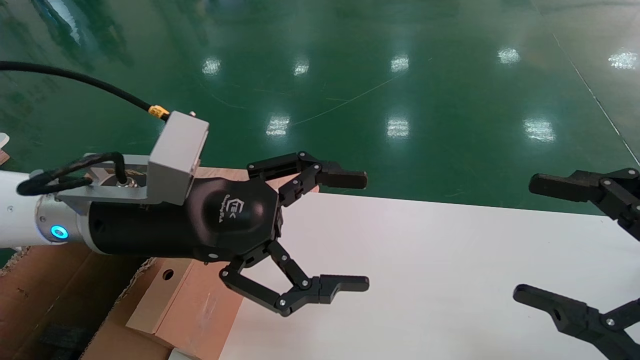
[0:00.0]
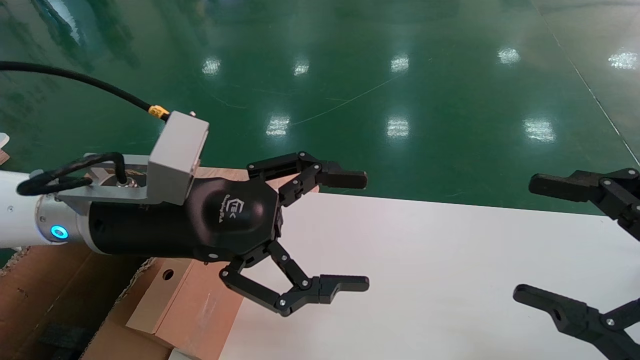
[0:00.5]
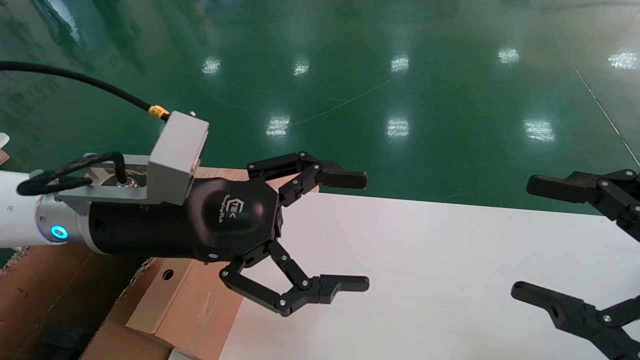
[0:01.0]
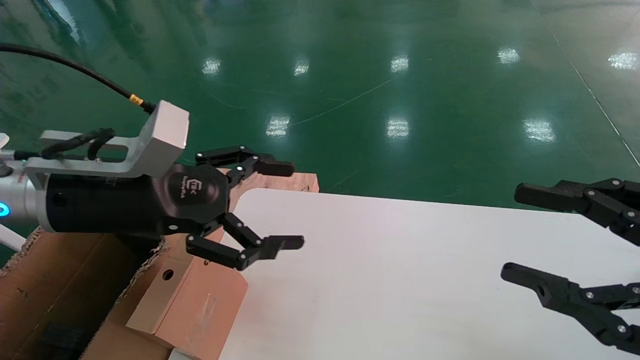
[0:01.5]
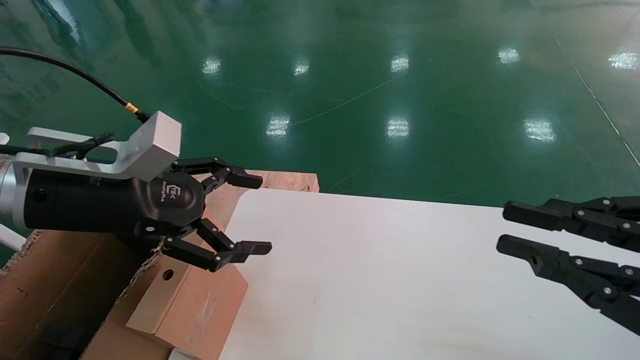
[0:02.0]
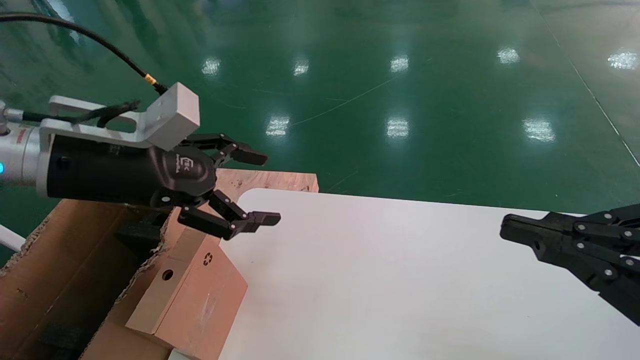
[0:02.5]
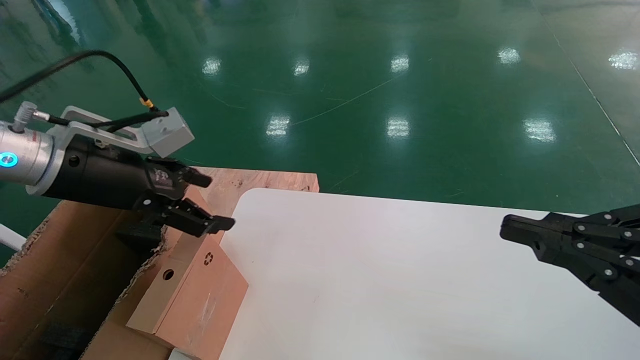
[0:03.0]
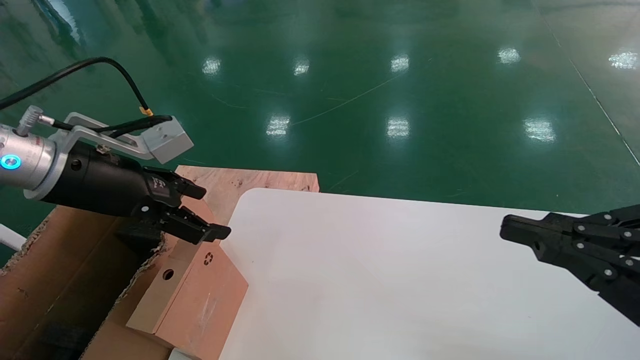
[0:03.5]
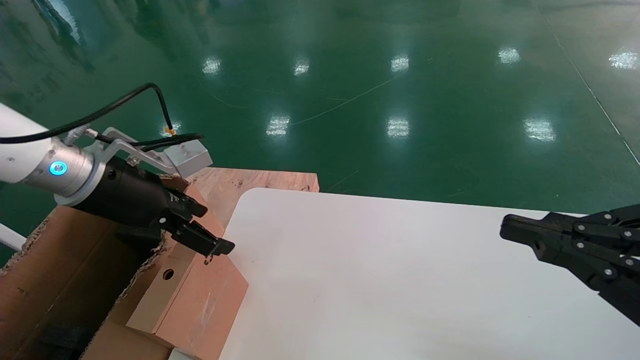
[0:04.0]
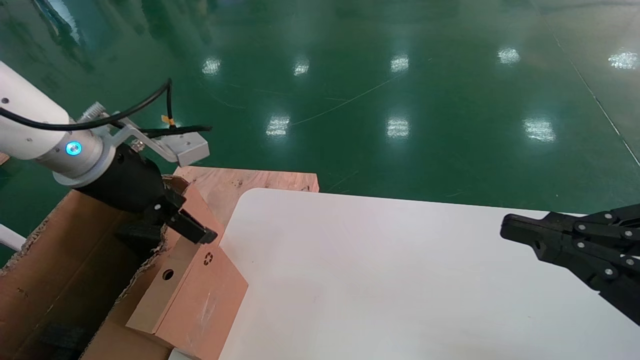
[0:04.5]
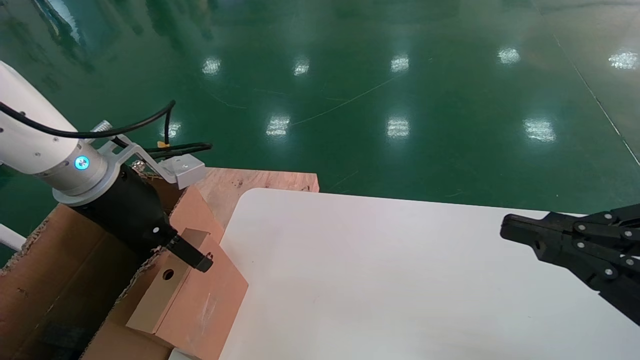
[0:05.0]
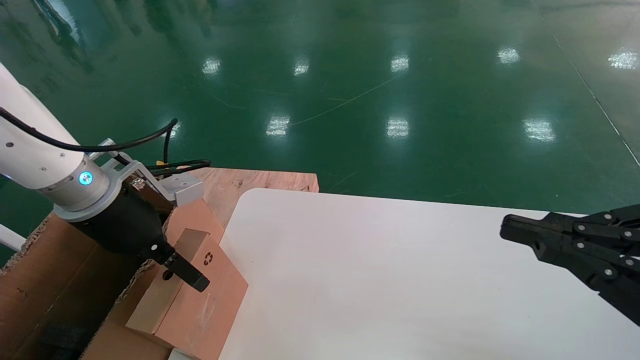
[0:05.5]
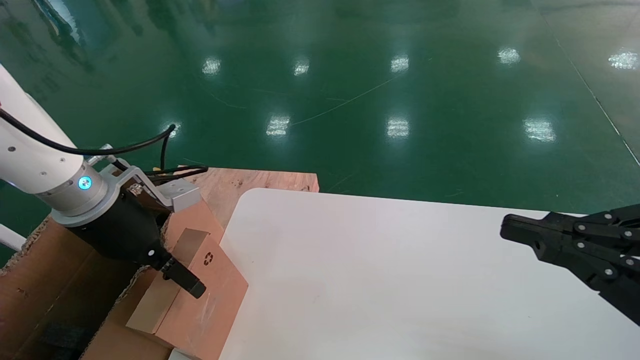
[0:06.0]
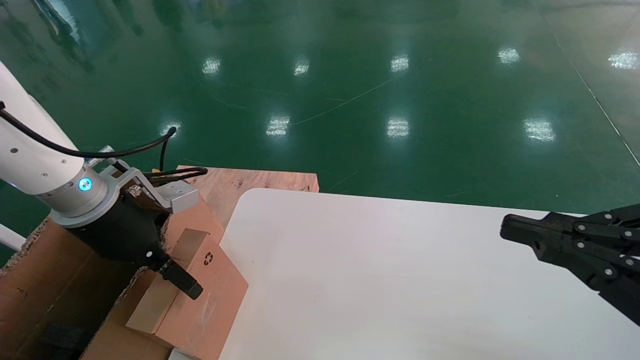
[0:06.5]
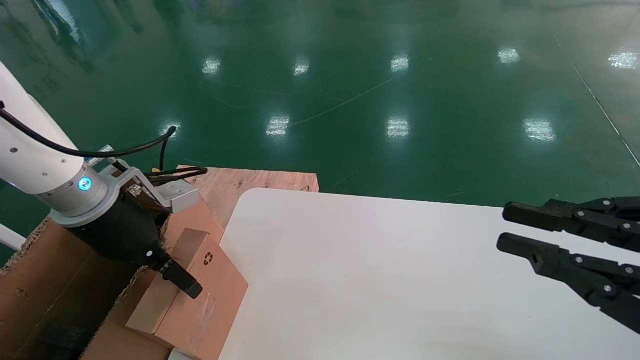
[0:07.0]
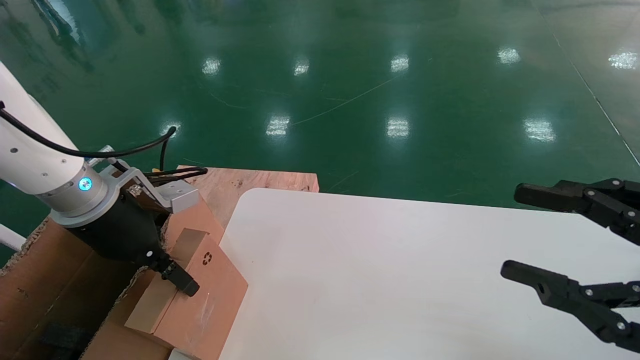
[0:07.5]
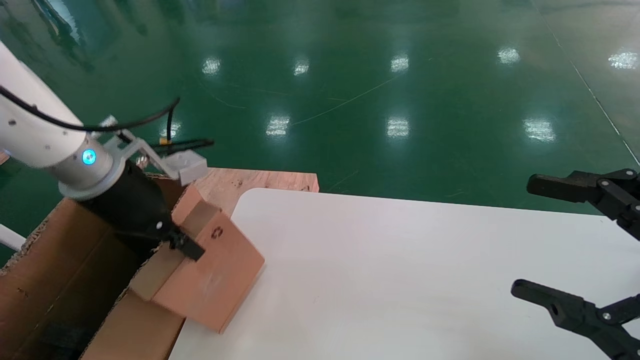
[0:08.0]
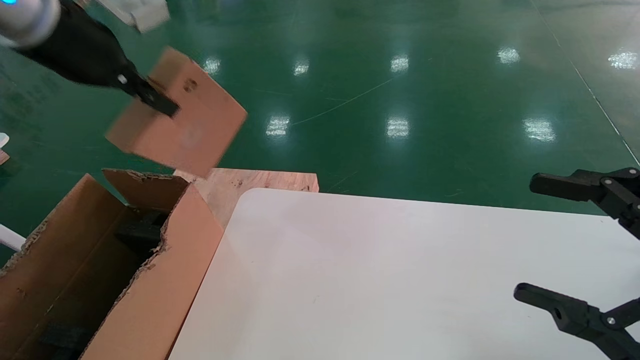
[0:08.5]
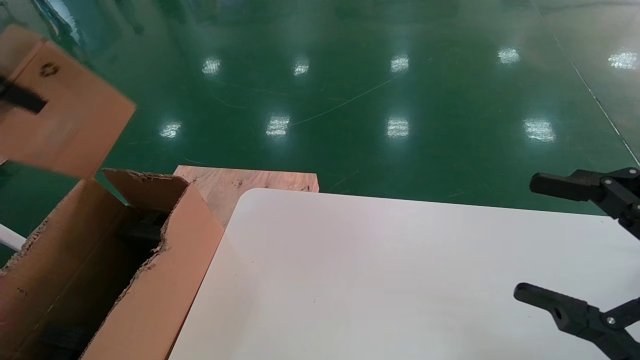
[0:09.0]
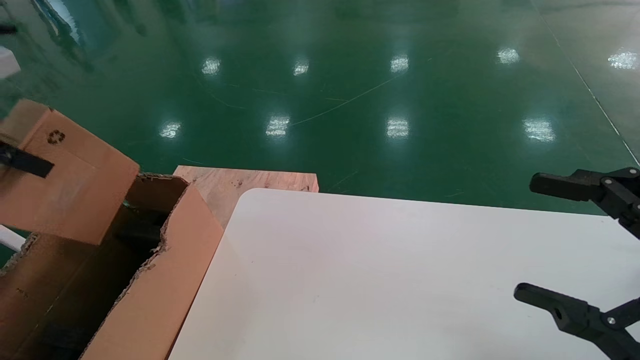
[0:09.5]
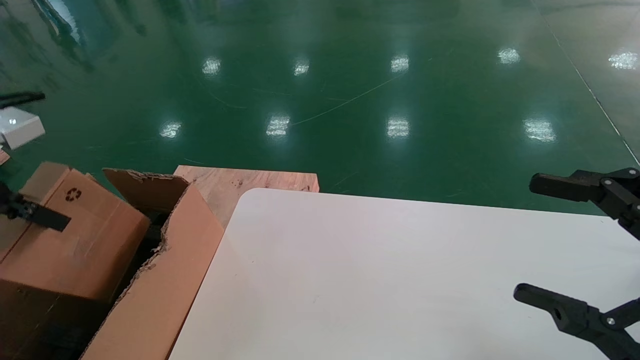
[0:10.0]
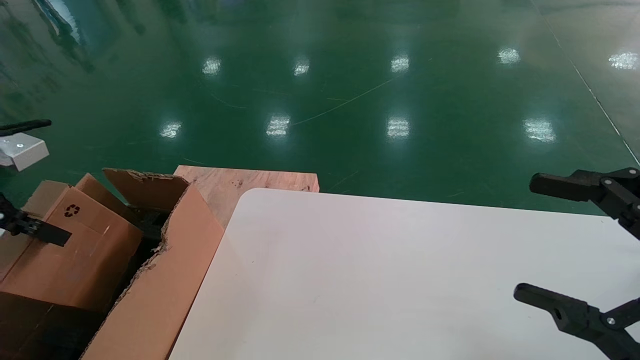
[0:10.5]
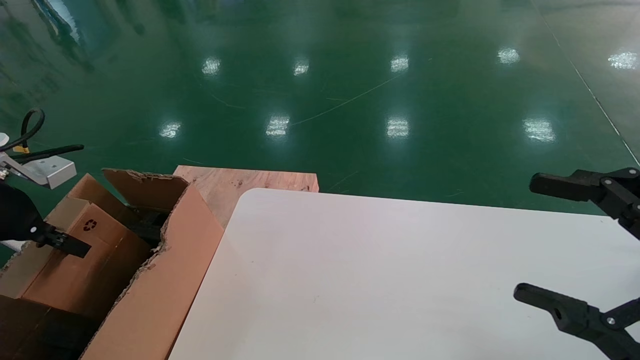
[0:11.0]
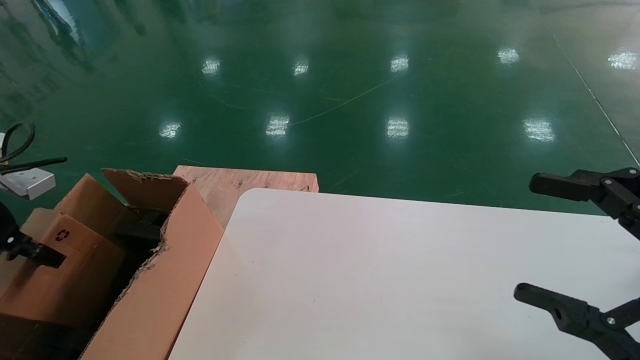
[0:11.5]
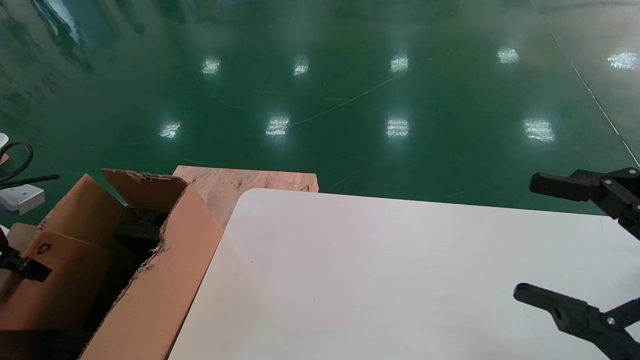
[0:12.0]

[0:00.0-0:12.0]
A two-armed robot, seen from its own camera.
Task of the whole recording: place the small box on the table into the large box on the left.
Step, 0:01.5 to 0:07.5: Pick up the mouse and the power cord paper box.
0:00.0 to 0:02.0: The right gripper closes its fingers. The left gripper heads to the left, covering about 10 cm.
0:02.0 to 0:04.0: The left gripper shifts roughly 5 cm forward.
0:06.0 to 0:08.0: The right gripper opens up. Meanwhile the left gripper moves upward, roughly 5 cm, and closes.
0:08.0 to 0:10.0: The left gripper heads to the left and backward, covering some 15 cm, and reaches about 15 cm upward, then returns.
0:10.0 to 0:12.0: The left gripper shifts about 15 cm downward and to the left.

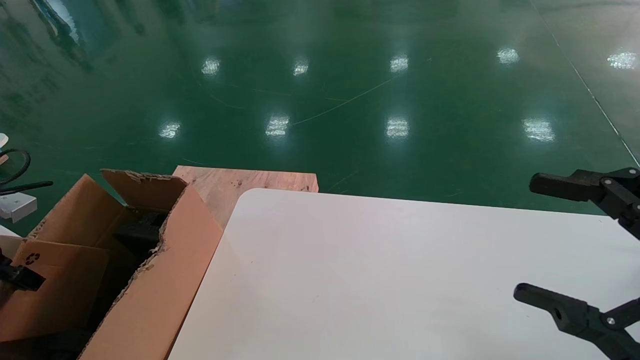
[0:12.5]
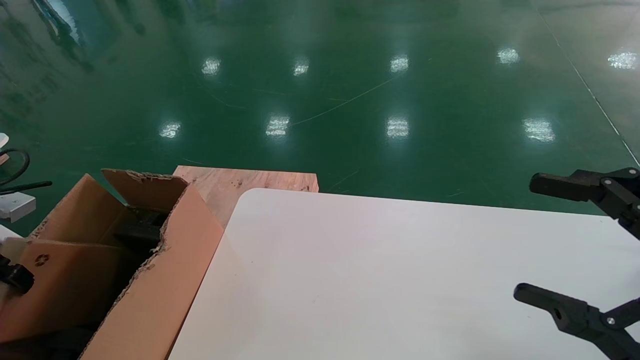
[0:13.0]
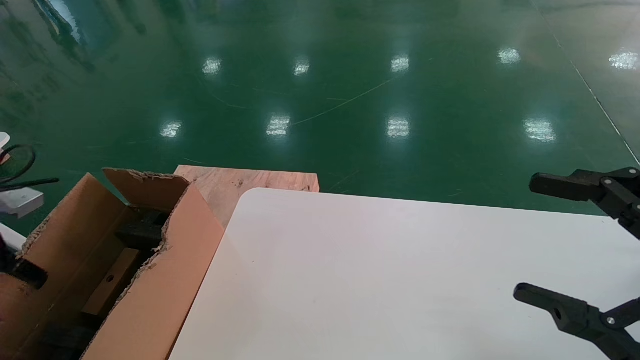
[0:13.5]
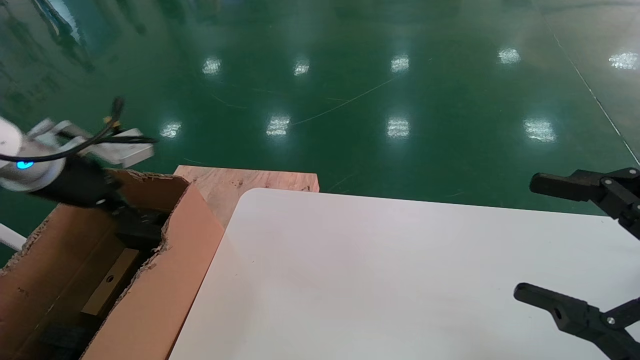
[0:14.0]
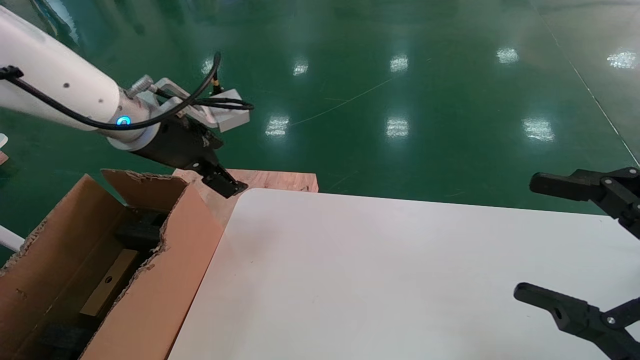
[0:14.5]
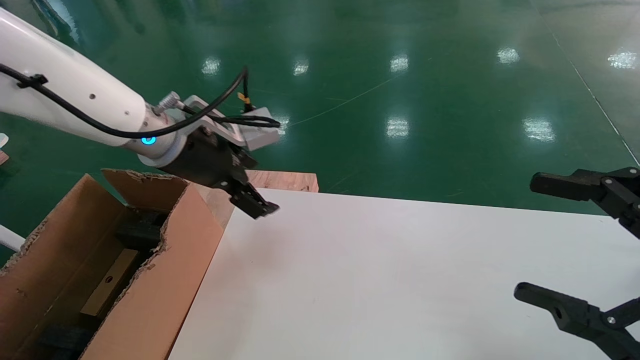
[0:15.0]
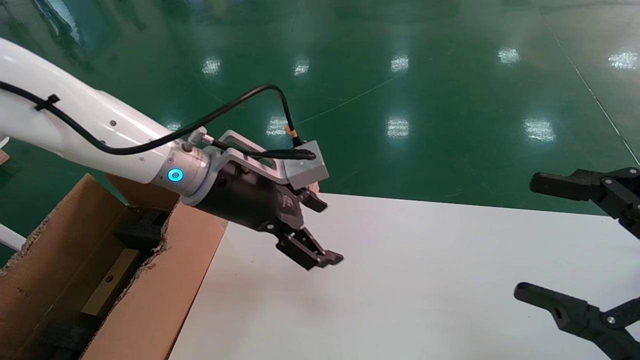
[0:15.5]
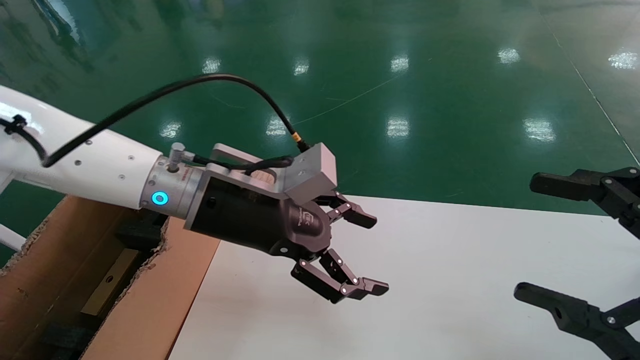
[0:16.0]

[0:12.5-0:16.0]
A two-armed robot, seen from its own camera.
Task of the whole recording: place the small box on the table into the large box on the left.
0:12.5 to 0:14.5: The left gripper moves to the right, upward and forward, about 30 cm, and opens.
0:14.5 to 0:16.0: The left gripper moves to the right and downward, roughly 15 cm.

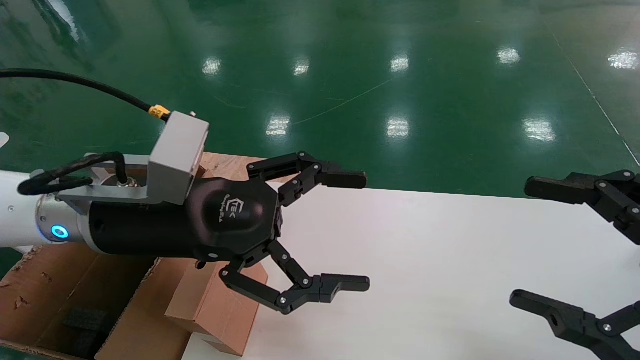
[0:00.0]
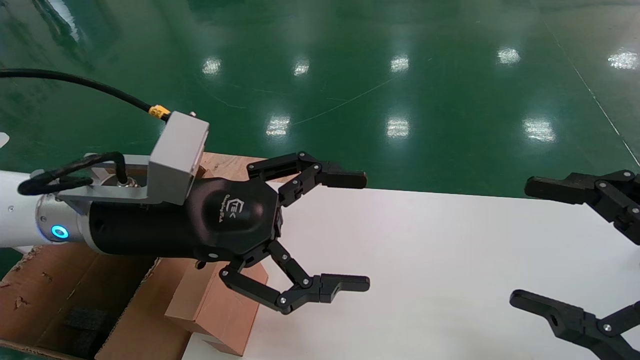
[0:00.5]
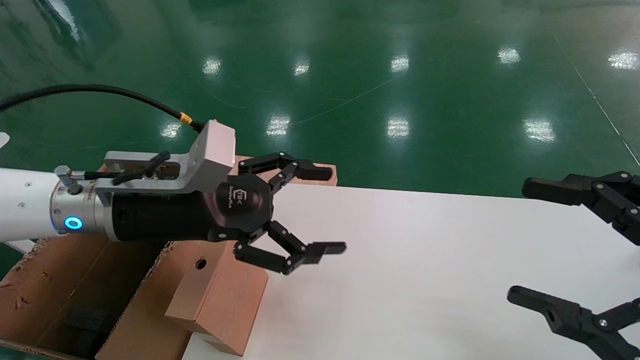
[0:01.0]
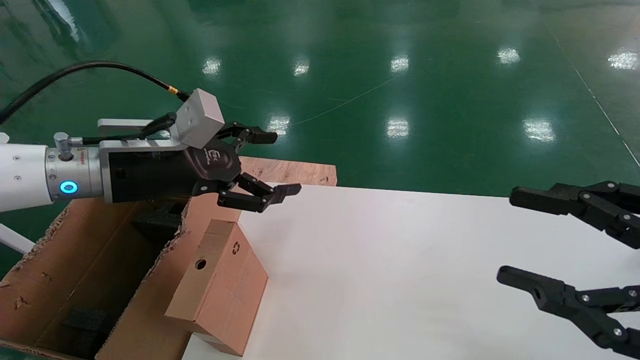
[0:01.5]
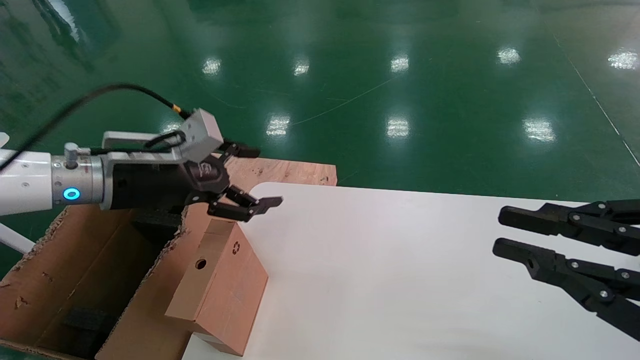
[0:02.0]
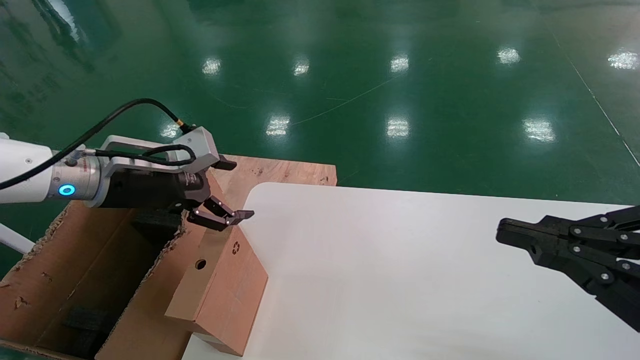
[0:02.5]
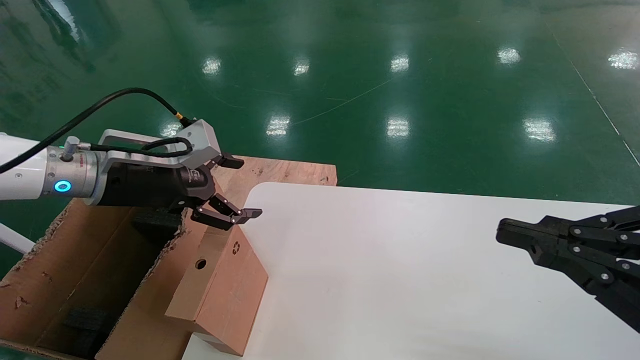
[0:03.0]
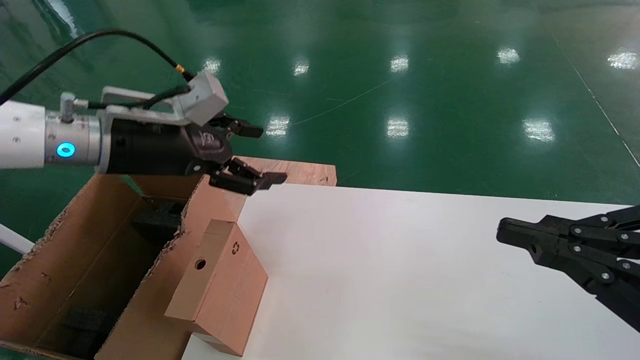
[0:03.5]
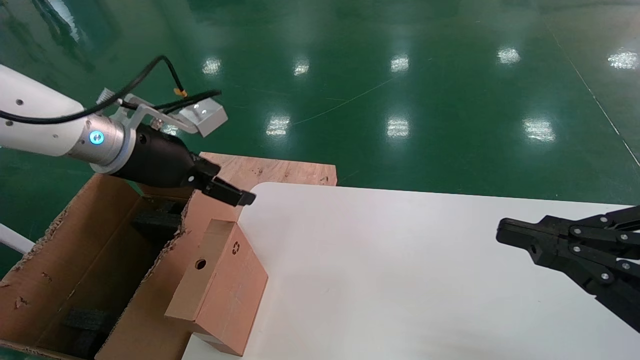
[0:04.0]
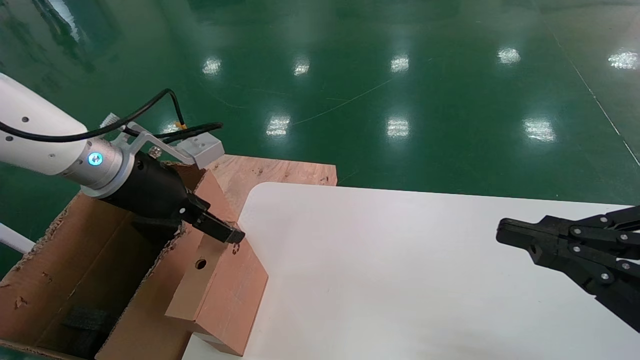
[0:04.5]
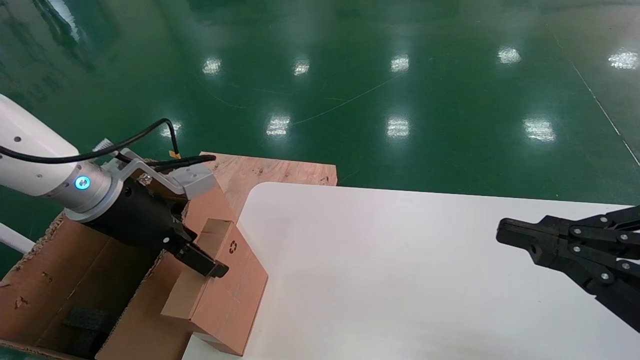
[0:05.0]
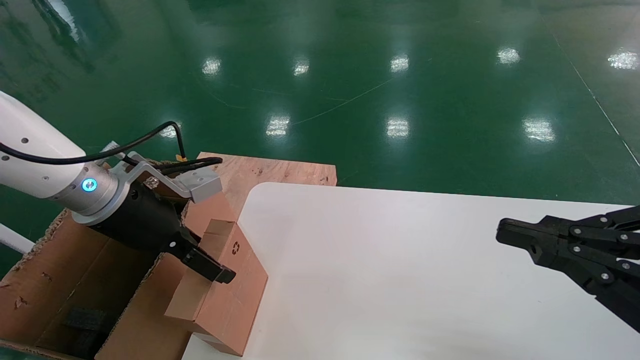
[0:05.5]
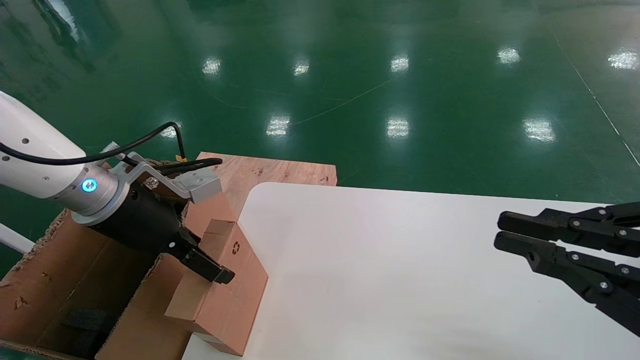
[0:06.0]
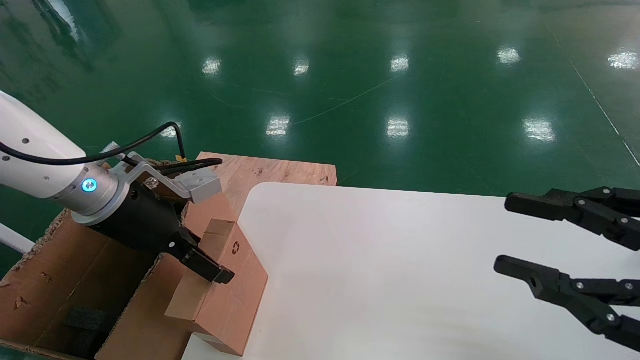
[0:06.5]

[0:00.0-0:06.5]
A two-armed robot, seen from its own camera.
Task of the whole recording: place the small box on the table into the large box on the left.
0:00.0 to 0:02.0: The left gripper moves to the left and forward, about 10 cm; the right gripper closes its fingers.
0:04.5 to 0:06.5: The grippers stay close to where they were, moving slightly.
